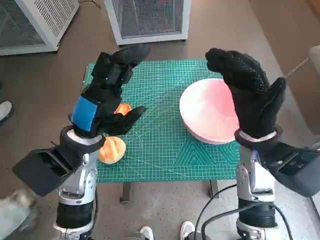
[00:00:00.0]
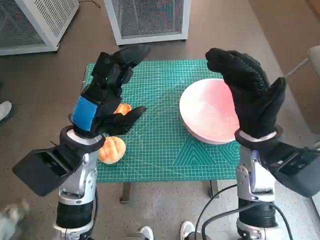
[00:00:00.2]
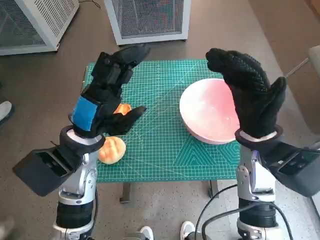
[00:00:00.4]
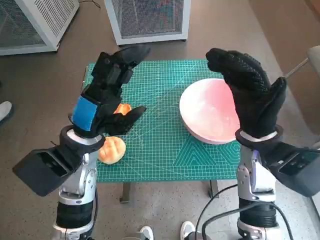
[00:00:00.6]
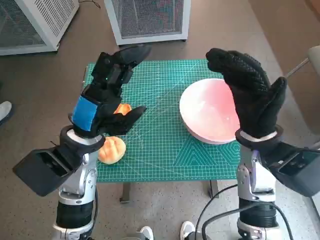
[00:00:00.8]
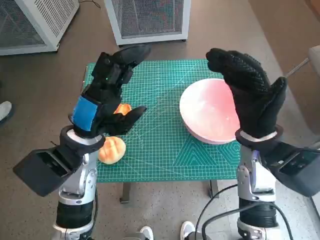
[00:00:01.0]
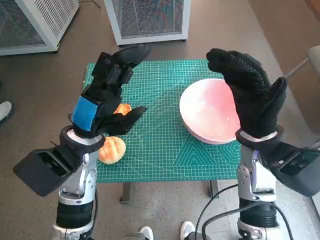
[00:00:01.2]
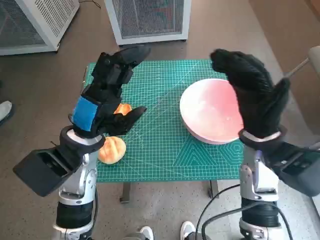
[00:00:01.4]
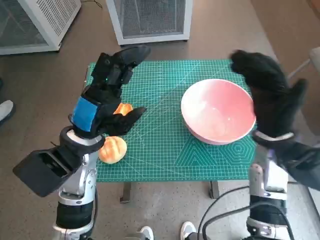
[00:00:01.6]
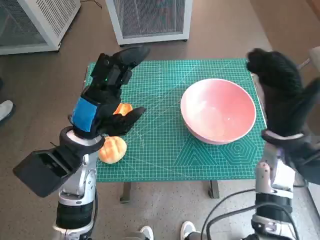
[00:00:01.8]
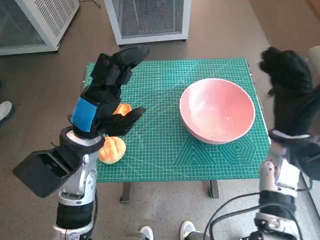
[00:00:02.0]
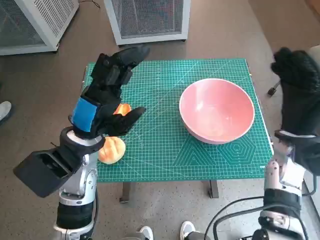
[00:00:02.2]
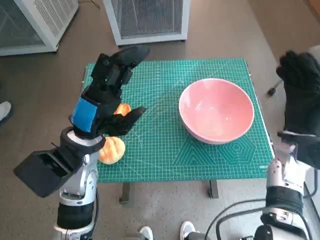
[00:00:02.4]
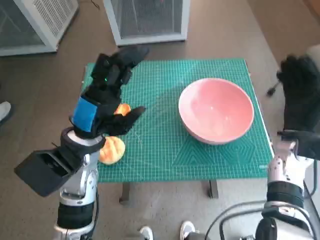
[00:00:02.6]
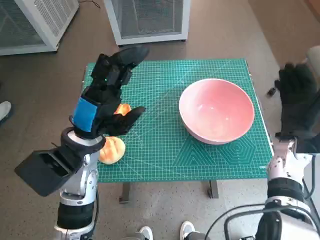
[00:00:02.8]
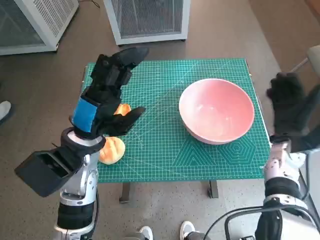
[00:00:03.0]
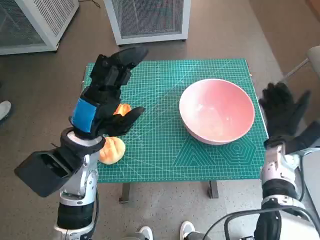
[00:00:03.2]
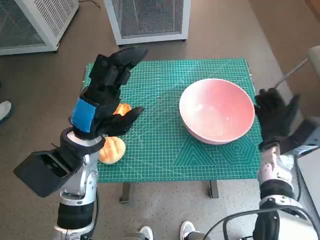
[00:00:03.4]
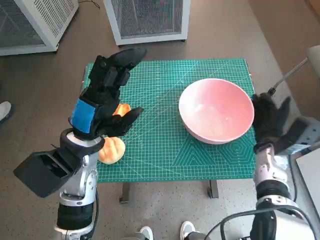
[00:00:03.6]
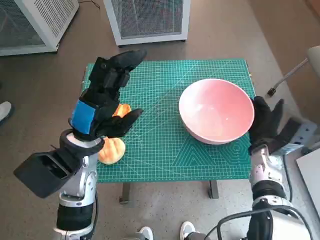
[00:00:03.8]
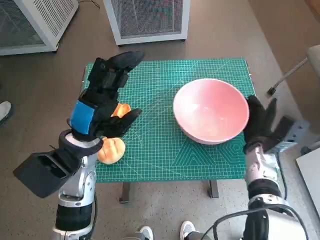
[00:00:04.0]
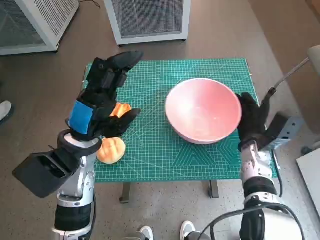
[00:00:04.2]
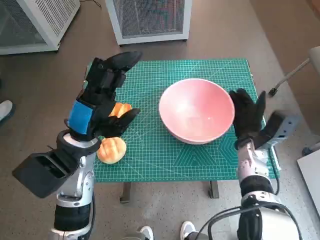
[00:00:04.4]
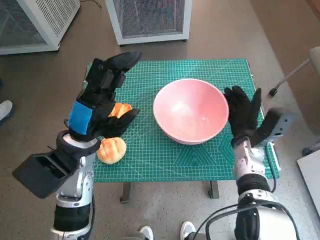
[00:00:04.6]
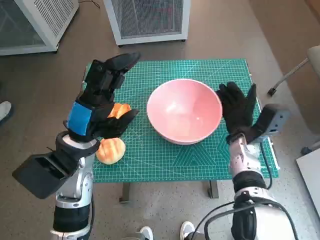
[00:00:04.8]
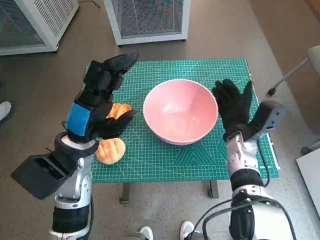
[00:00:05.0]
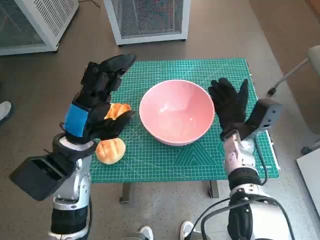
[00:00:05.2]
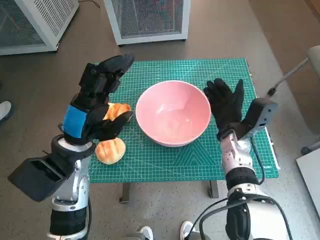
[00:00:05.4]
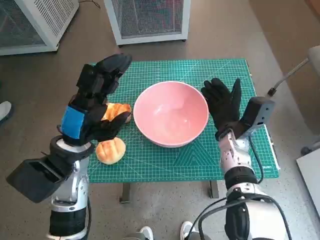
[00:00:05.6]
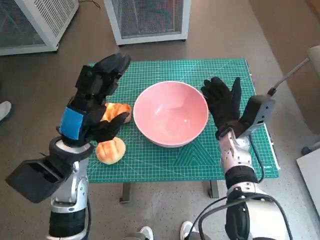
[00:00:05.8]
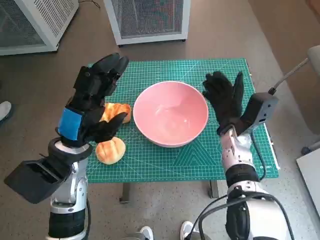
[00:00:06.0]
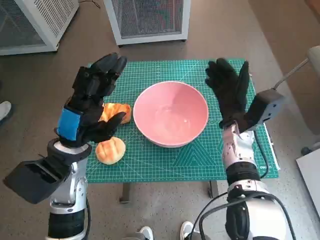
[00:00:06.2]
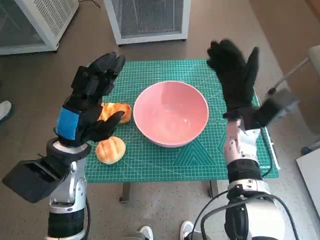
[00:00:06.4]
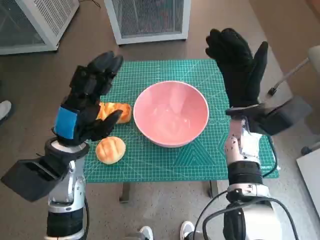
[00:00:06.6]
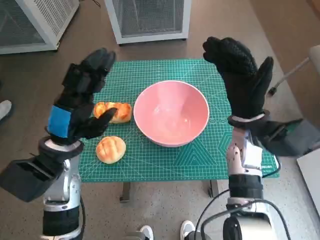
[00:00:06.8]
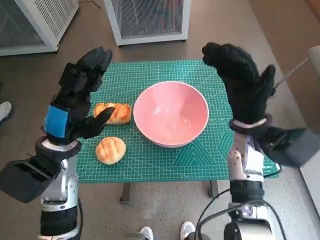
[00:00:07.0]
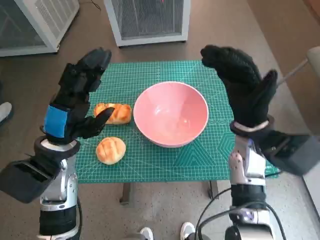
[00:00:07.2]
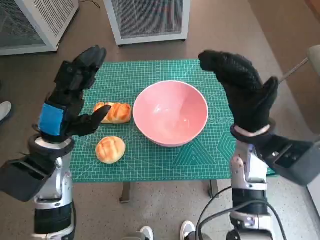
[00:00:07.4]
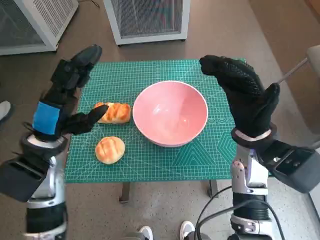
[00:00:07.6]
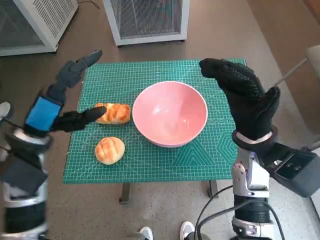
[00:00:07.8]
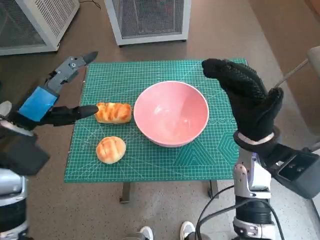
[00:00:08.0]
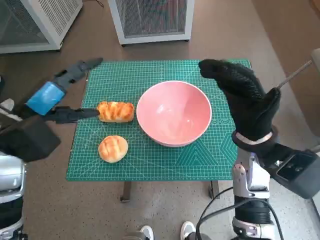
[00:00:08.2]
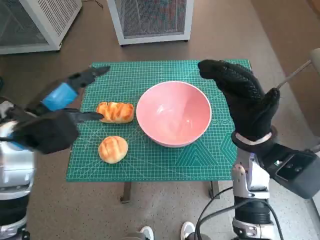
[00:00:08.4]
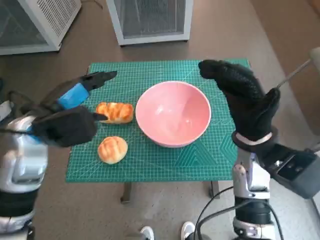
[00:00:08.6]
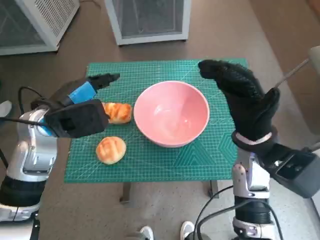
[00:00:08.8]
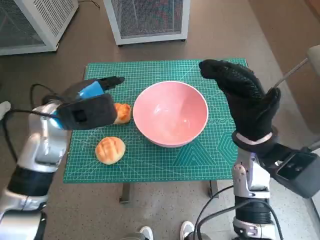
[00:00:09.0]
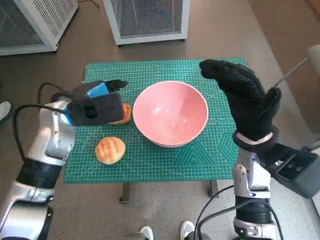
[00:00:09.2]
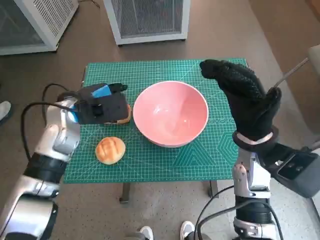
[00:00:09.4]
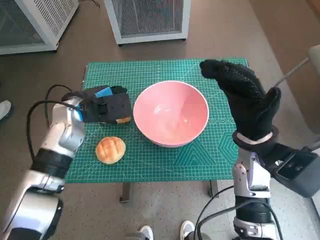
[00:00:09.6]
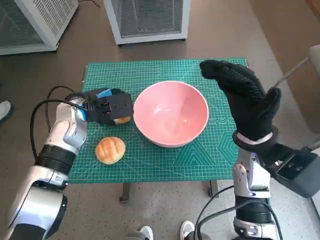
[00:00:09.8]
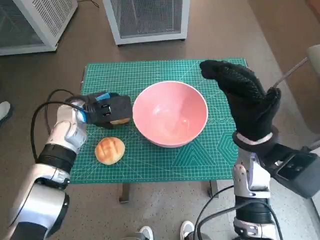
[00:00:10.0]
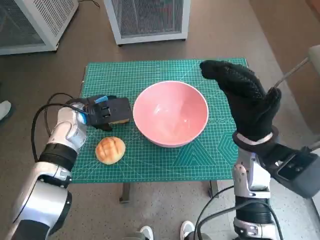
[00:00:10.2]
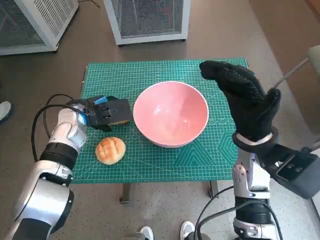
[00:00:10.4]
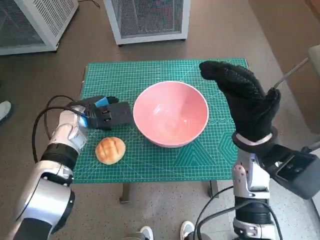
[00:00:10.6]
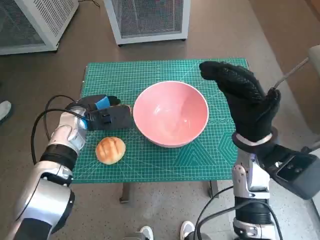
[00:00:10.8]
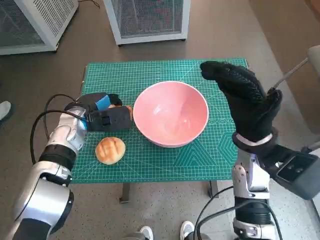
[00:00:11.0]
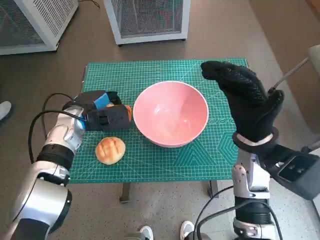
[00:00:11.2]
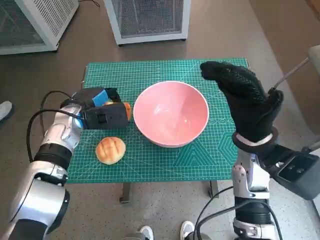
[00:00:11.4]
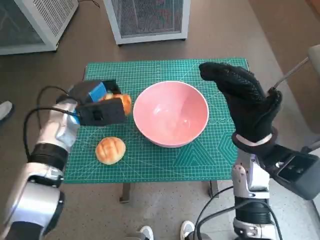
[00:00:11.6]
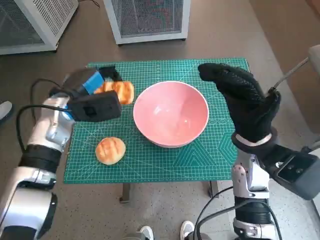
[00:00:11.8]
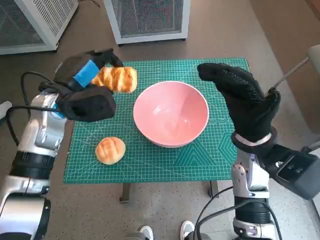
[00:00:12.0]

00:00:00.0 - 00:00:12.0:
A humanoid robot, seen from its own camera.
Task of the whole recording: Push the bowl into the center of the table and put the bread into the bowl.
Step, 00:00:00.0 - 00:00:06.0: Move the pink bowl to the center of table with right hand.
Step, 00:00:06.2 - 00:00:10.8: Grasp the long bread with left hand.

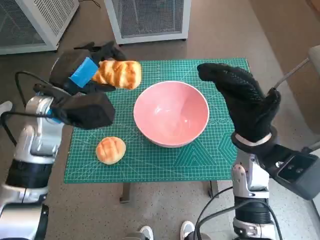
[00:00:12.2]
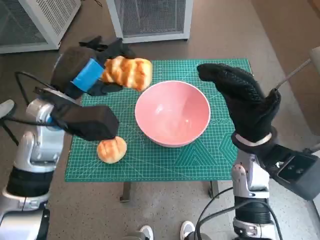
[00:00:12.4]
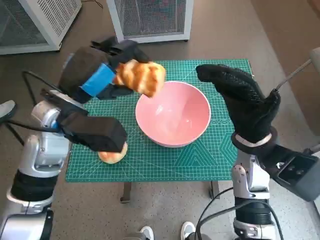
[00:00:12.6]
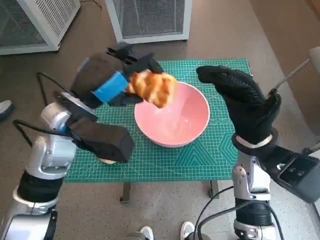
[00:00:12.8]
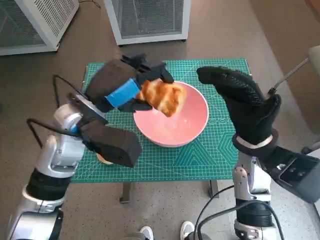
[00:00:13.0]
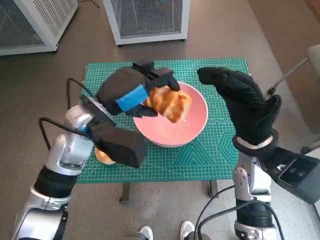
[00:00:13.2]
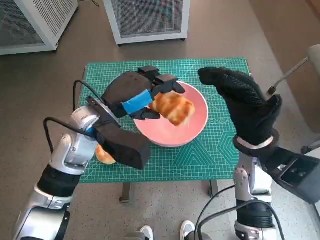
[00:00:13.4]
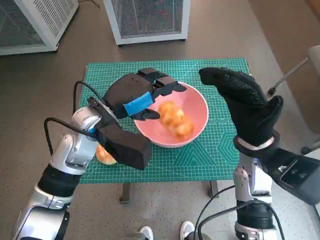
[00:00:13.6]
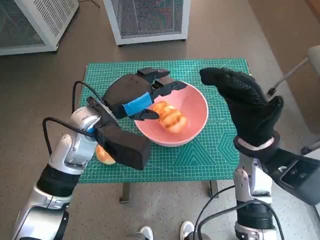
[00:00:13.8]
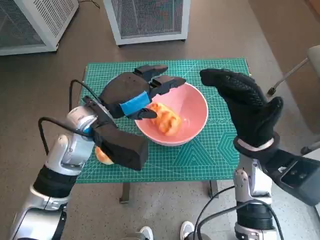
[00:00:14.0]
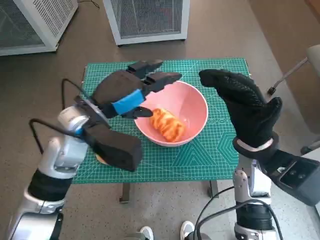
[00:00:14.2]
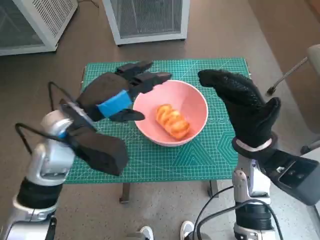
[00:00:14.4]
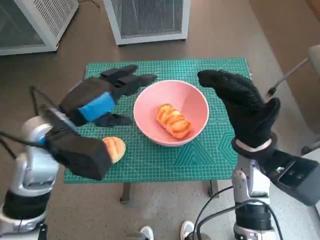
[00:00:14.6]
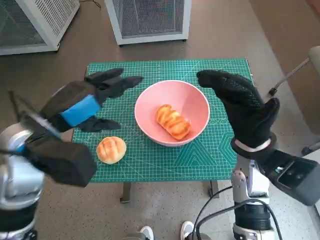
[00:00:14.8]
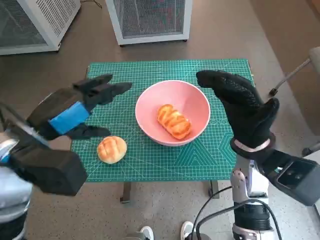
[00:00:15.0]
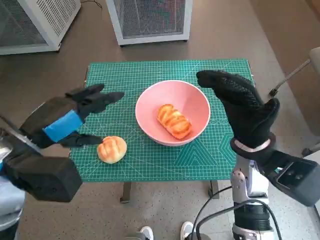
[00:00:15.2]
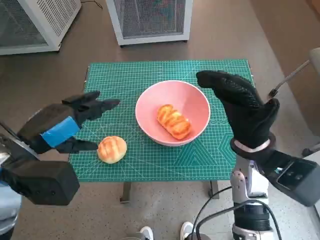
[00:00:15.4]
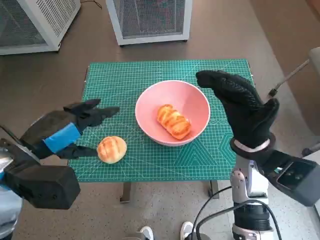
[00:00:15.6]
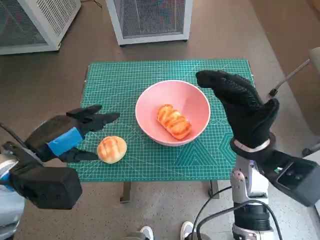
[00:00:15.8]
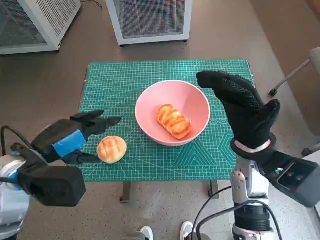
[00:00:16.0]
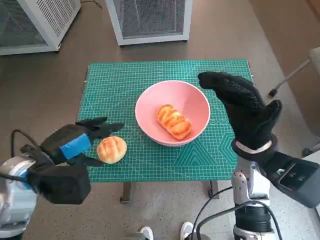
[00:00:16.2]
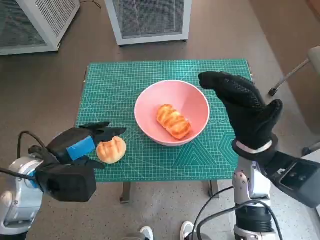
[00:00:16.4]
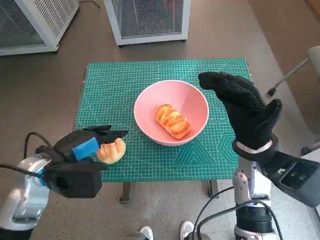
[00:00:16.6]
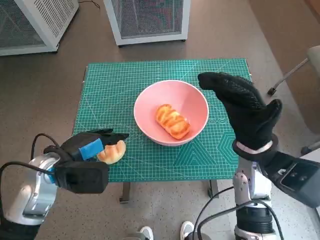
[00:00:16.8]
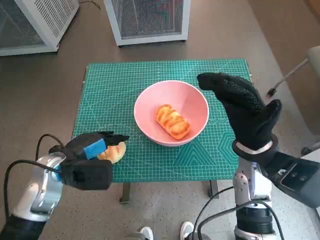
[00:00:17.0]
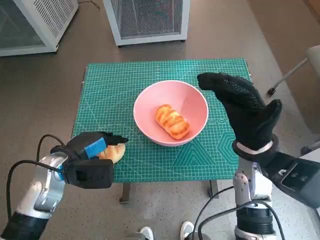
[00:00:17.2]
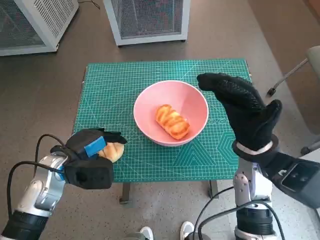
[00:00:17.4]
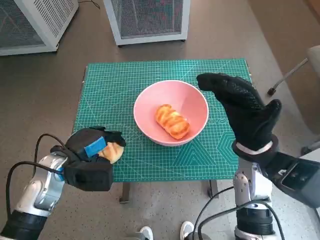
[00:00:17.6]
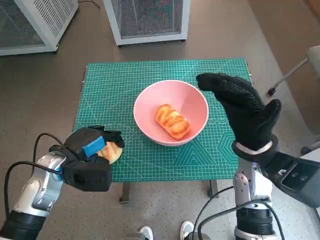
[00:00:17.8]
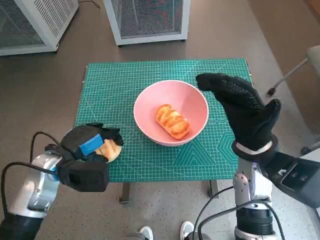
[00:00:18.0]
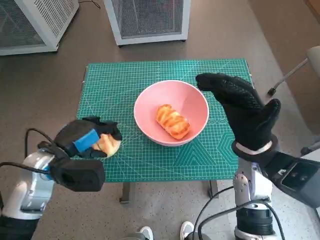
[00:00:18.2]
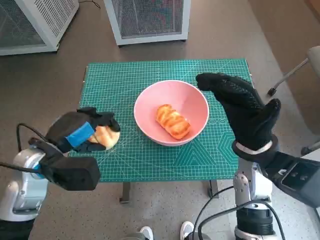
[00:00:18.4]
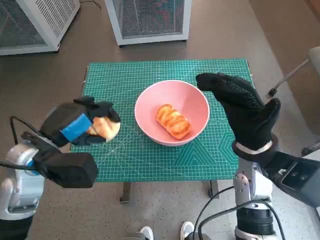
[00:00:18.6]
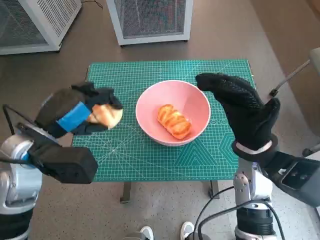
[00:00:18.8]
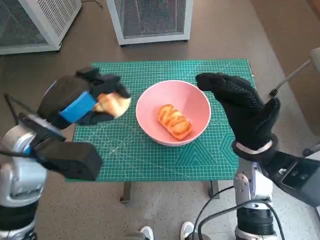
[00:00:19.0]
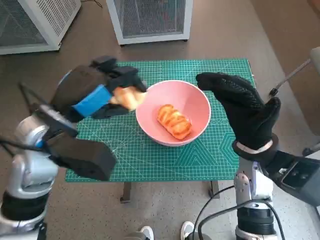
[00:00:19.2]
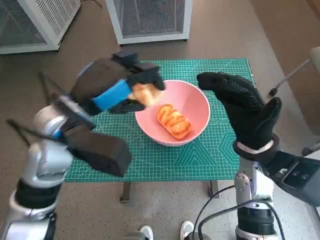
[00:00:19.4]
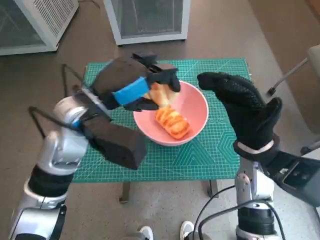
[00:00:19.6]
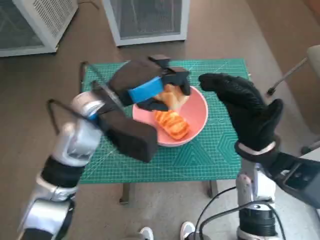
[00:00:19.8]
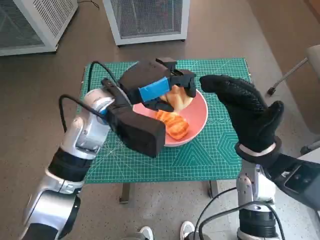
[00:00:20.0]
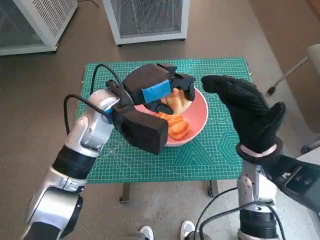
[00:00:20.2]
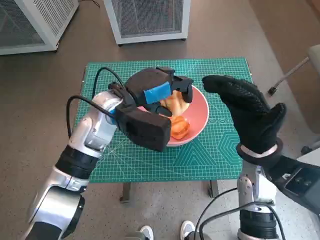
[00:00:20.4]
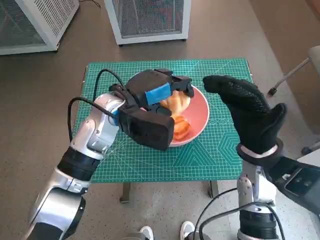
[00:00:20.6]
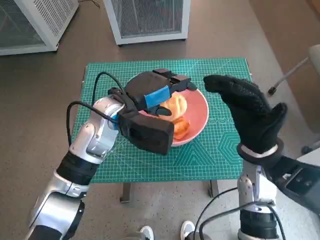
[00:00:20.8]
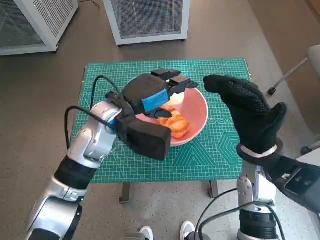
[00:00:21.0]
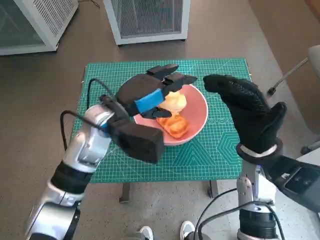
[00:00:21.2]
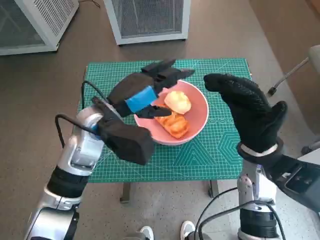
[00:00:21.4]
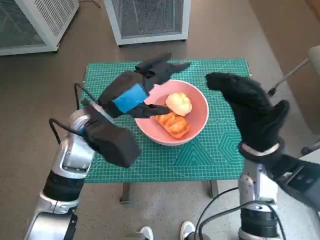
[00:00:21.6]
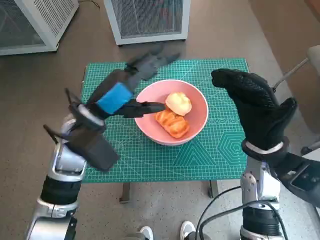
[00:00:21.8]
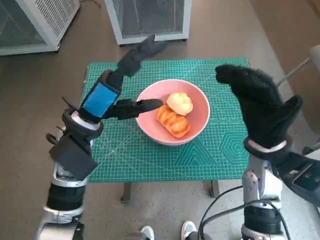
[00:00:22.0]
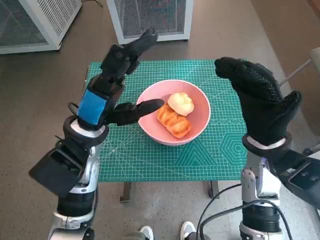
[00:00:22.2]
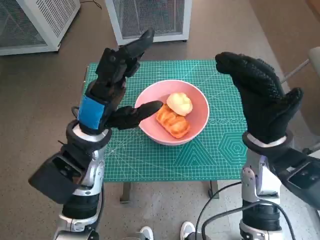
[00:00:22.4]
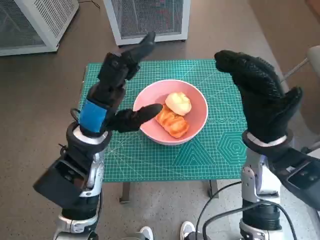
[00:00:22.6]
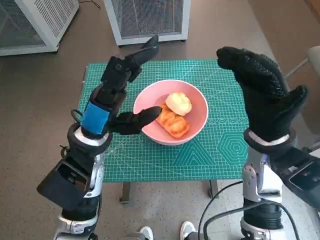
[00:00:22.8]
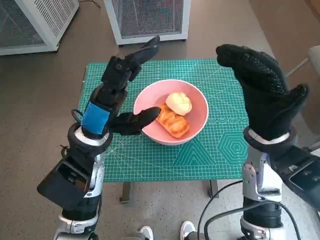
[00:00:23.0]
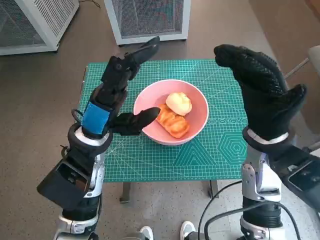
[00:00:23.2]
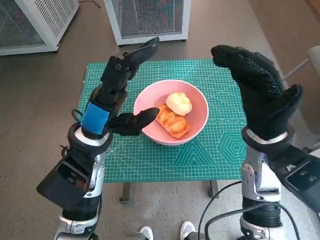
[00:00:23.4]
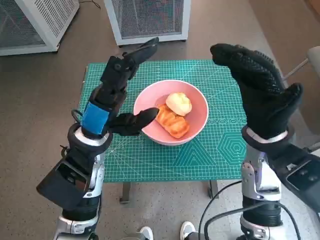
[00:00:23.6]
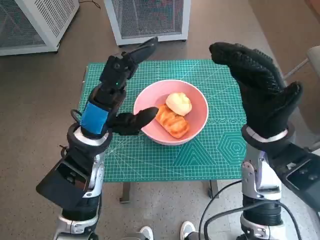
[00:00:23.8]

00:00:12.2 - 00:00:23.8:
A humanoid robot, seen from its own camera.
Task of the whole recording: Push the bowl into the center of the table and put the bread into the bowl.
Step, 00:00:12.2 - 00:00:13.6: Place the long bread in pink bowl with left hand.
Step, 00:00:13.8 - 00:00:17.2: Grasp the round bread with left hand.
Step, 00:00:17.4 - 00:00:20.8: Place the round bread in pink bowl with left hand.
